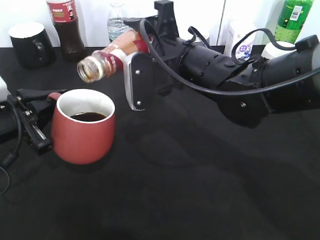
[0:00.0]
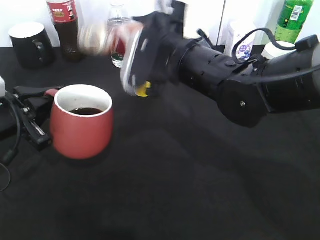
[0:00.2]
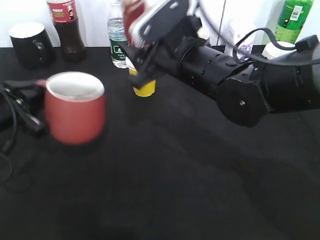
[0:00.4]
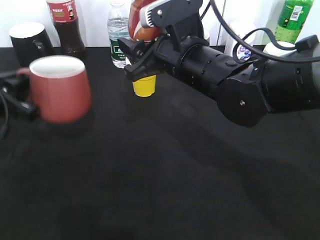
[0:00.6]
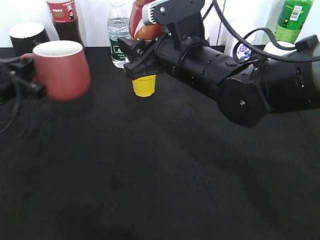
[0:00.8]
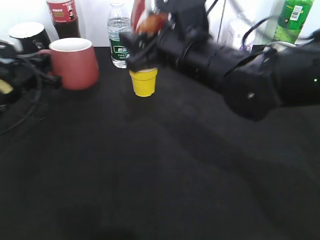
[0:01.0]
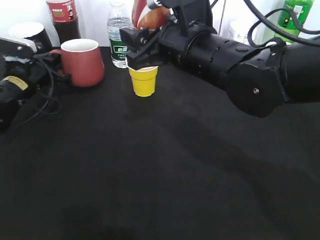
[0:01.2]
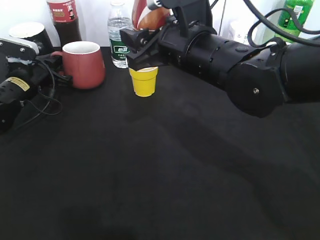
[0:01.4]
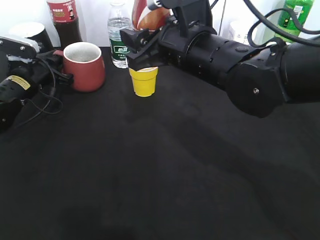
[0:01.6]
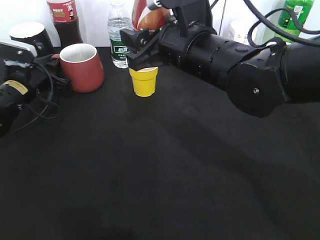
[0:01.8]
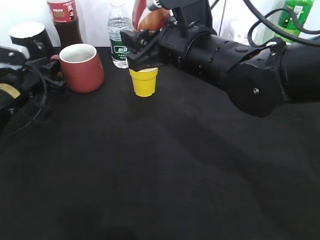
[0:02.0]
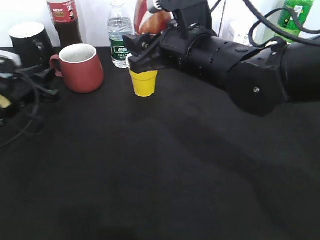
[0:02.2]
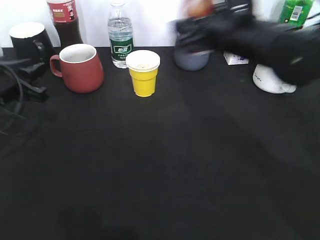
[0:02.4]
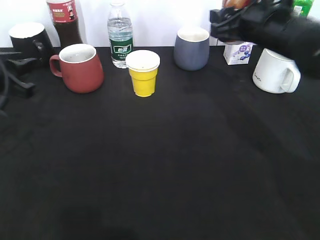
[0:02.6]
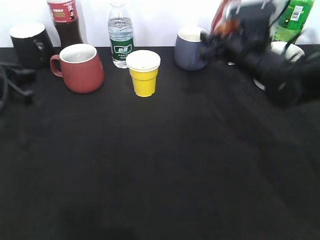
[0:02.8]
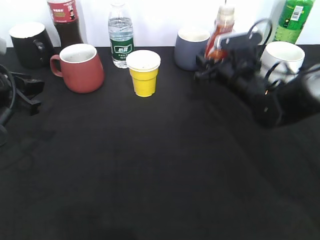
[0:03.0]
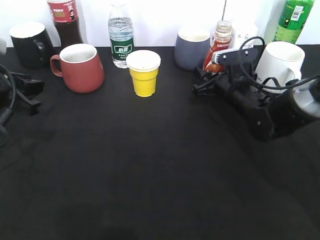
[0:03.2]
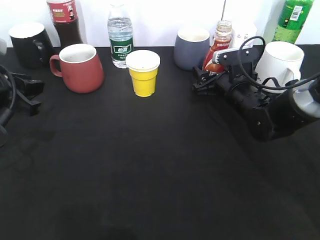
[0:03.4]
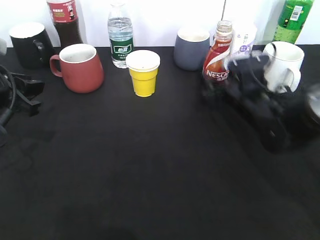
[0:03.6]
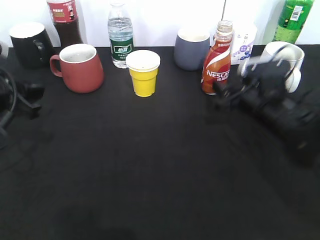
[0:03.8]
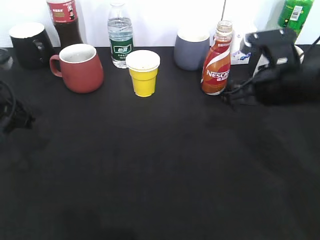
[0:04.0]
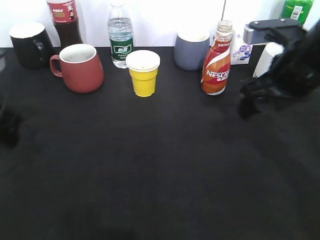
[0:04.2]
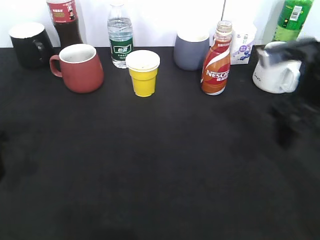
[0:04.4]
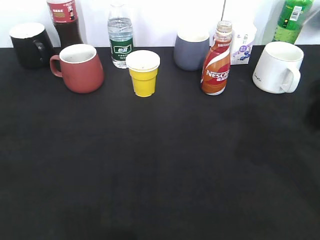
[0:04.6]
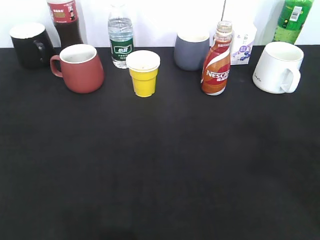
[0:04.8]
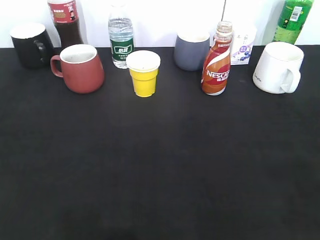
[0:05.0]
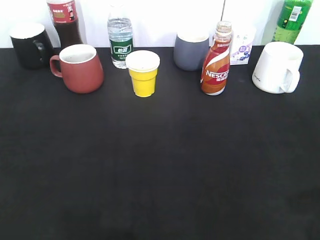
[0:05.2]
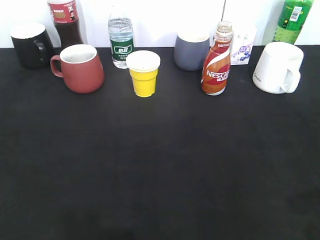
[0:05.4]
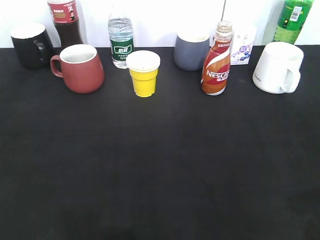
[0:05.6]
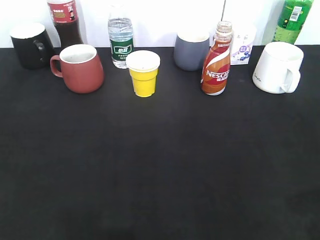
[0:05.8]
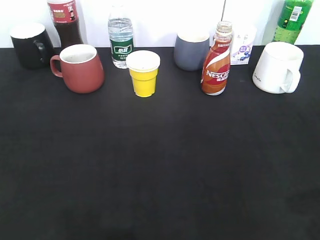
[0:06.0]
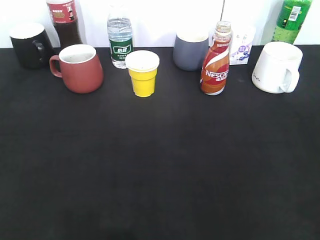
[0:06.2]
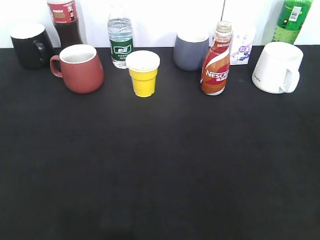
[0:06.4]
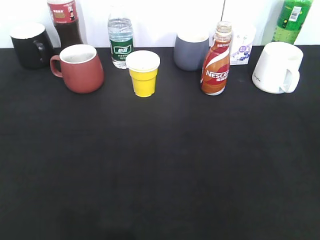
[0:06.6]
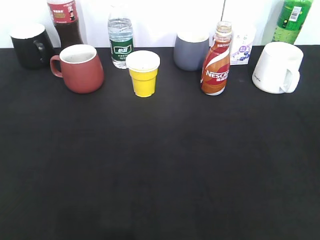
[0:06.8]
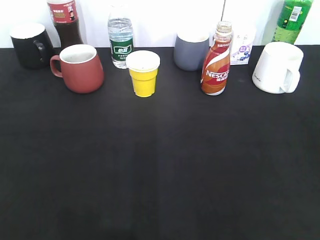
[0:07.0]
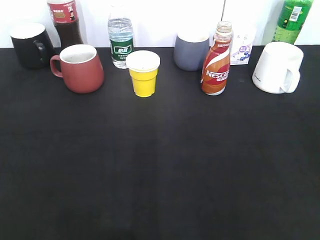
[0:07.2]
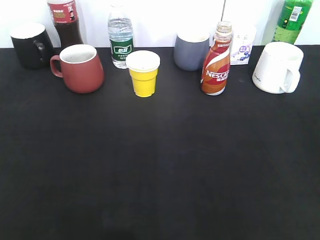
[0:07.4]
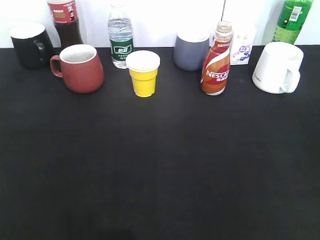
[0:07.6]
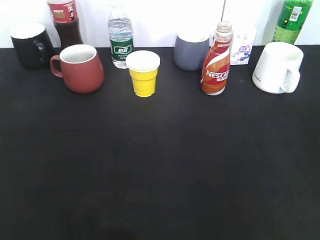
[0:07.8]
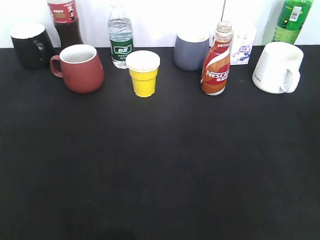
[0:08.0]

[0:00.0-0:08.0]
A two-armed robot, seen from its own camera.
Step, 0:00.4 to 0:02.0: Place the red cup on the table with left gripper.
Step, 0:02.2 to 0:03.2: Place the coffee bottle on the table with right gripper.
0:00.0 to 0:01.6: The left gripper heads forward, covering approximately 15 cm.
0:01.6 to 0:03.2: The left gripper travels backward and upward by roughly 20 cm. Meanwhile the right gripper heads downward, to the right and forward, covering about 20 cm.
0:03.2 to 0:04.8: The left gripper shifts roughly 25 cm backward and upward, and opens its fingers. The right gripper shifts some 35 cm upward and backward, and opens its fingers.
0:04.8 to 0:06.4: The right gripper moves backward, downward and to the right, approximately 15 cm, and closes.
0:06.4 to 0:08.0: The grippers make only small movements.

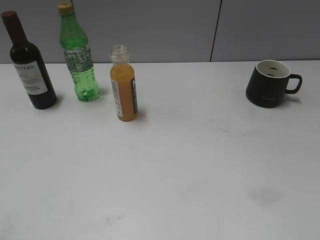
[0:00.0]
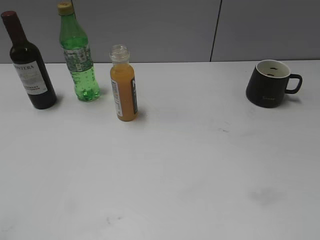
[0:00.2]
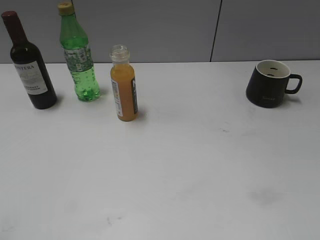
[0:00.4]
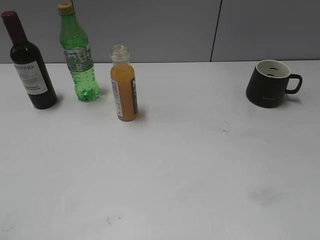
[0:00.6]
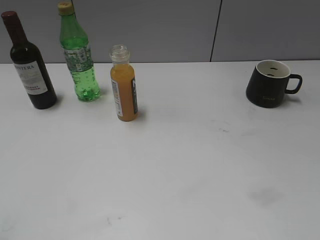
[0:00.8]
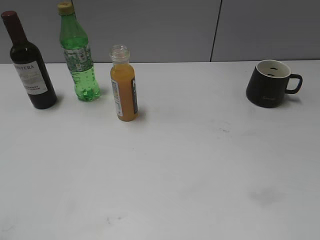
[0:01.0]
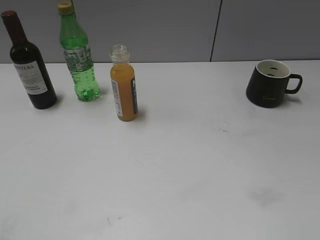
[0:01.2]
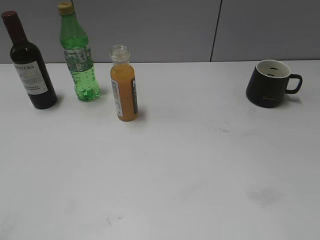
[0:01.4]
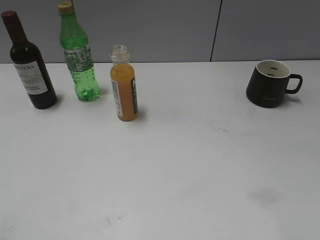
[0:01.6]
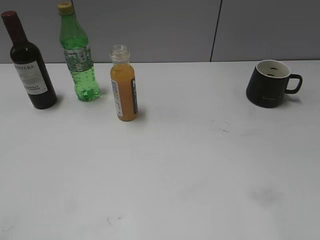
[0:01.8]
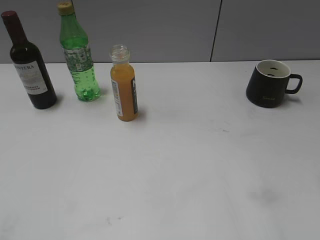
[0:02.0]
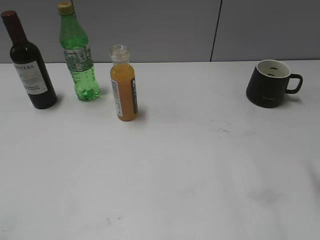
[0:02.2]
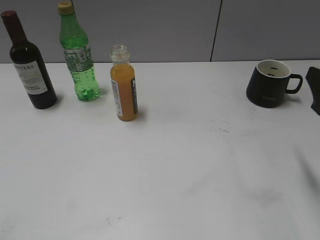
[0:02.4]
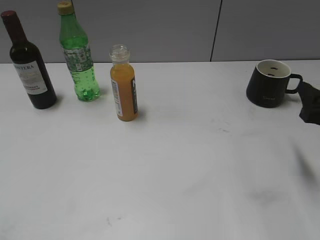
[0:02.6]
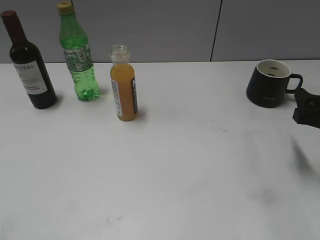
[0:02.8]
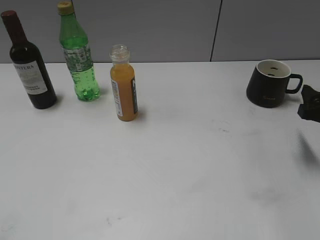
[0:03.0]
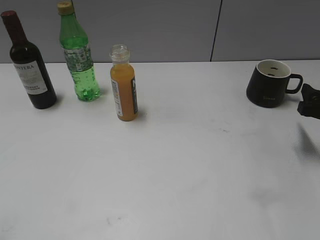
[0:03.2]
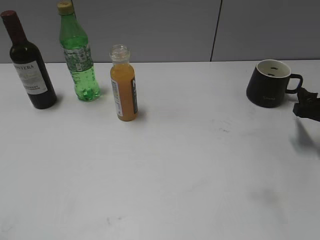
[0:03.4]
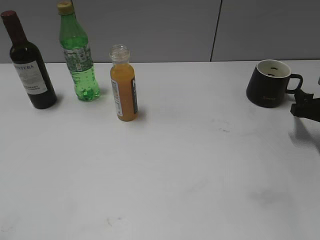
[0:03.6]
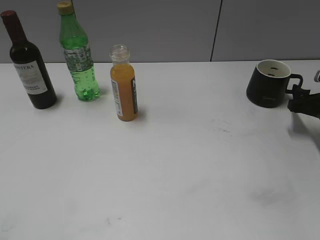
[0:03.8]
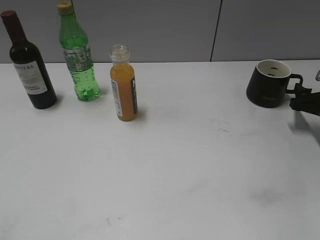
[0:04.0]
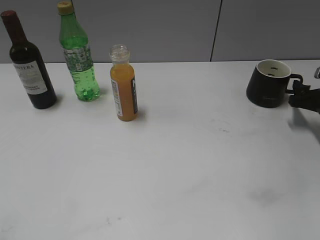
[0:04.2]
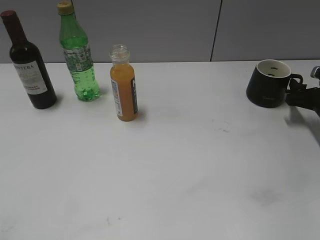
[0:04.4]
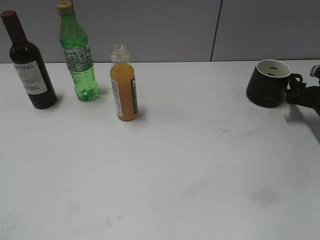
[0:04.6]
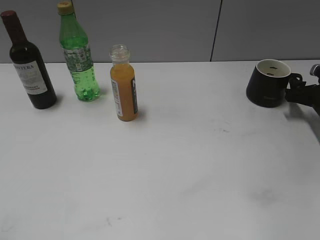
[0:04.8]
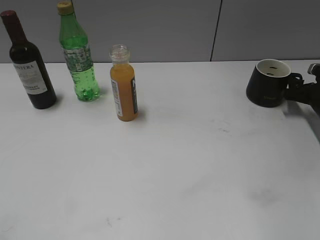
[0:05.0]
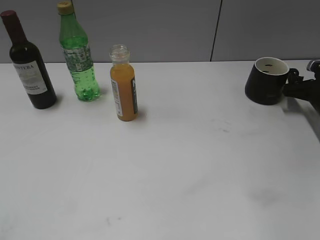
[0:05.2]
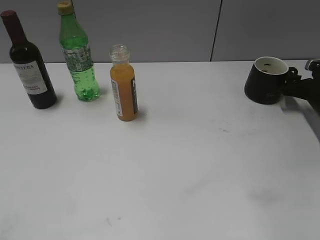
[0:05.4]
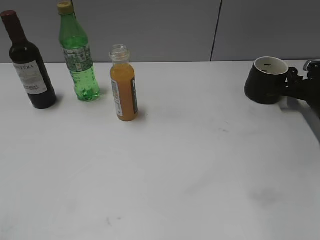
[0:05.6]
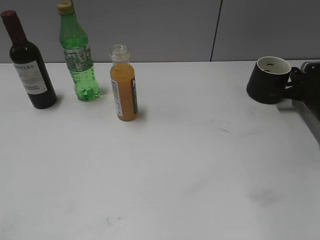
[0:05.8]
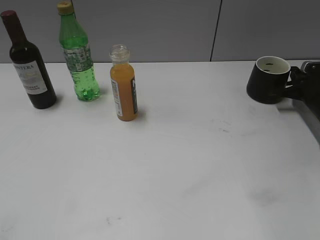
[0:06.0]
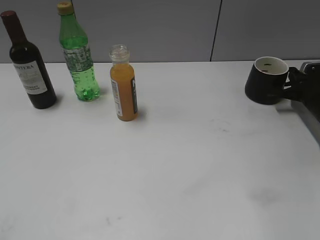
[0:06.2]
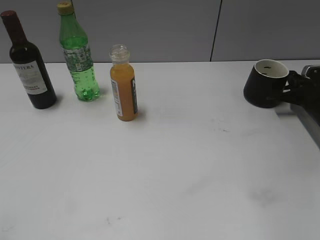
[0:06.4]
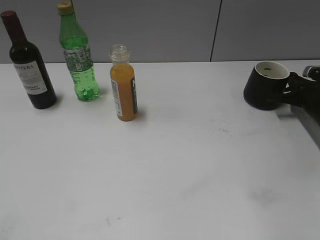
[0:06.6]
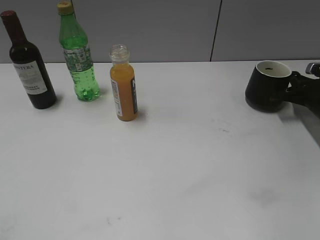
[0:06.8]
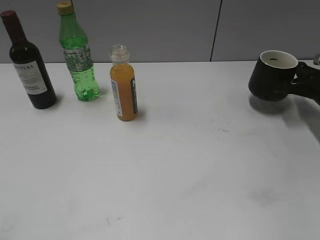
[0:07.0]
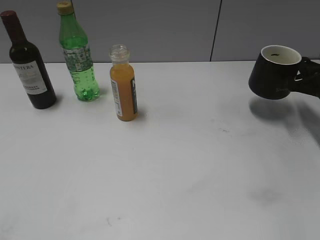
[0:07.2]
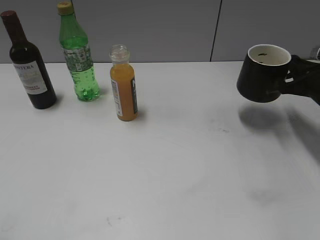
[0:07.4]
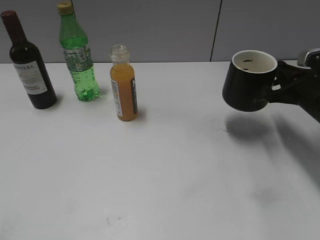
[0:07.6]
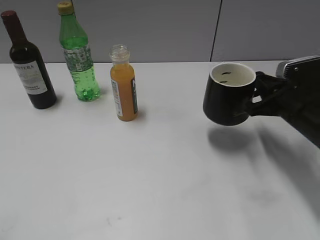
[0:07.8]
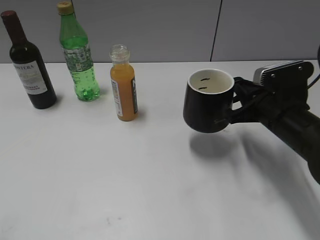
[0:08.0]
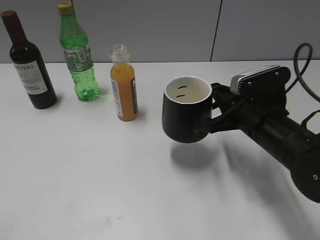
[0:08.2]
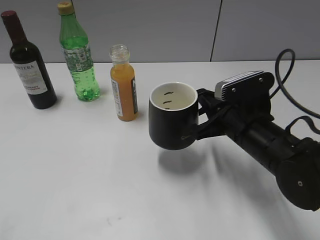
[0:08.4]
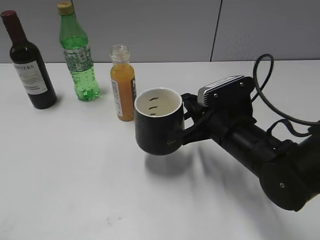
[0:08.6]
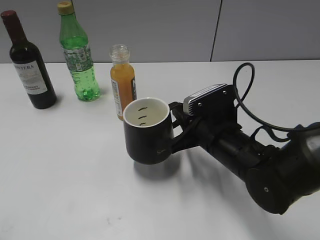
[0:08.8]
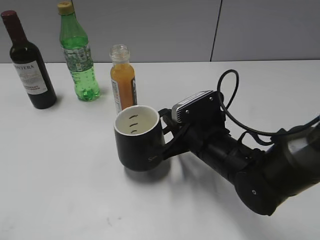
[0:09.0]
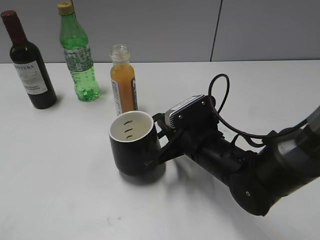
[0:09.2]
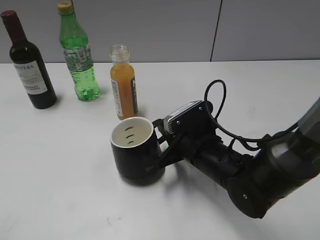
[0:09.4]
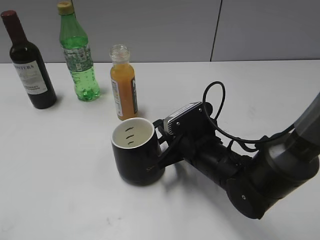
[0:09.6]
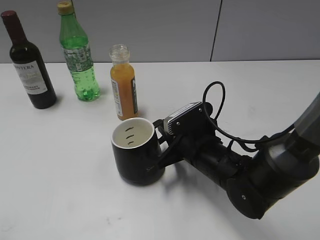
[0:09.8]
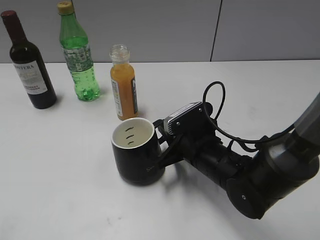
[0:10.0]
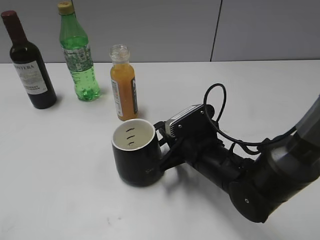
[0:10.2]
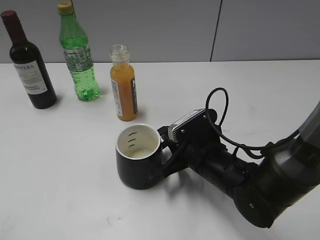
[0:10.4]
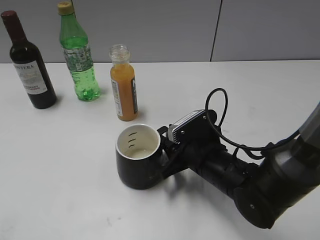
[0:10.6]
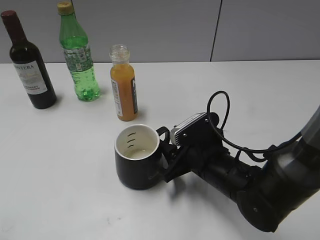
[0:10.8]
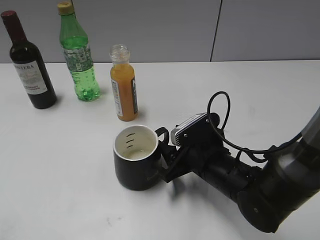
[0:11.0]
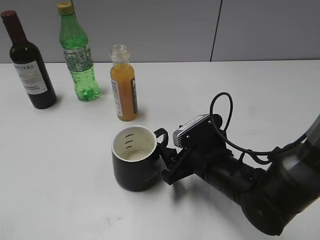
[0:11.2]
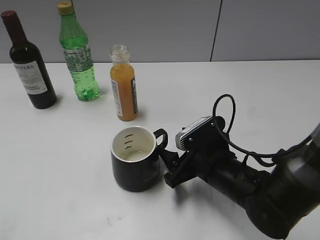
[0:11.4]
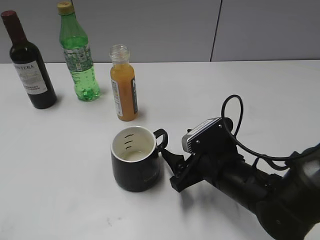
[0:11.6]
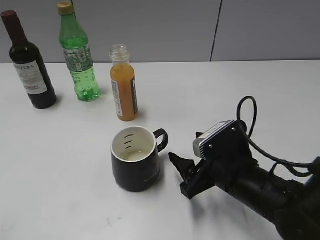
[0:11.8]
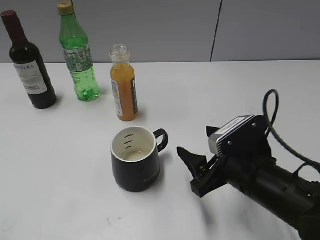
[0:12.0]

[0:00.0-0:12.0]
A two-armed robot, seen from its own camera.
Step, 0:02.4 to 0:06.2: Grasp the black cup with right gripper.
Step, 0:06.6 to 0:10.8: Place the black cup in the center of view with right gripper.
0:01.6 to 0:03.0: The right gripper moves forward and downward, some 25 cm.
0:03.0 to 0:04.4: The right gripper heads forward and downward, covering about 15 cm.
0:04.4 to 0:06.0: The right gripper ends up about 5 cm from where it was, and closes its fingers.
0:06.0 to 0:07.6: The right gripper goes some 15 cm backward, upward and to the left.
0:07.6 to 0:09.0: The right gripper moves to the left, about 20 cm.
0:09.0 to 0:10.4: The grippers make only small movements.
0:10.4 to 0:12.0: The right gripper travels backward by approximately 5 cm, and opens.

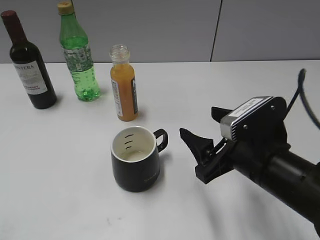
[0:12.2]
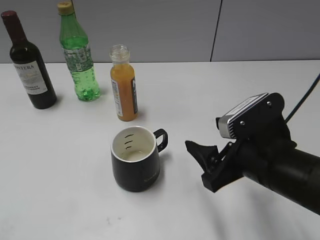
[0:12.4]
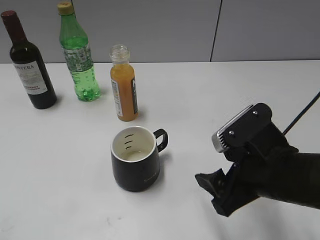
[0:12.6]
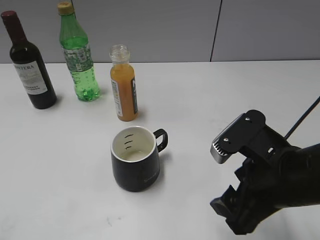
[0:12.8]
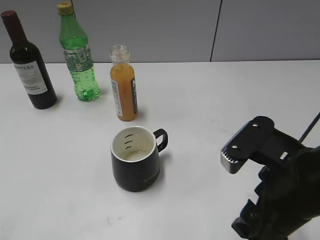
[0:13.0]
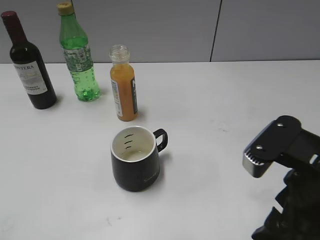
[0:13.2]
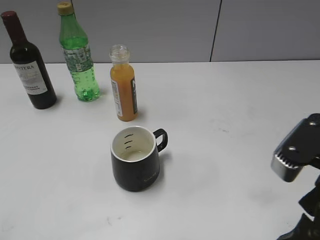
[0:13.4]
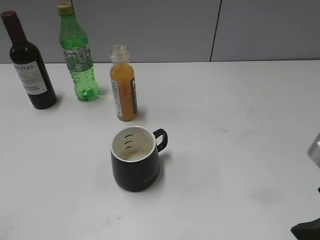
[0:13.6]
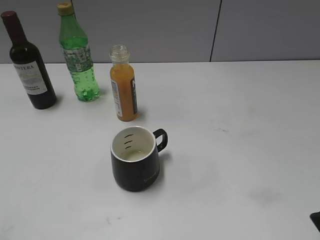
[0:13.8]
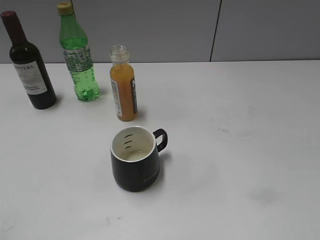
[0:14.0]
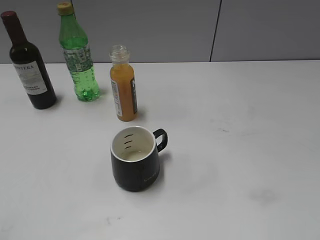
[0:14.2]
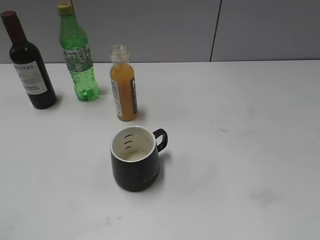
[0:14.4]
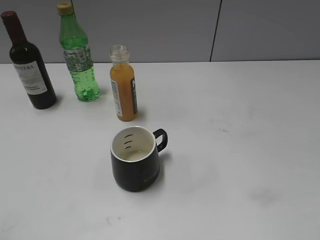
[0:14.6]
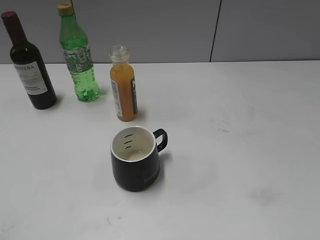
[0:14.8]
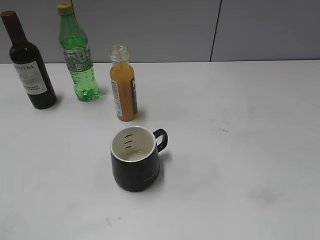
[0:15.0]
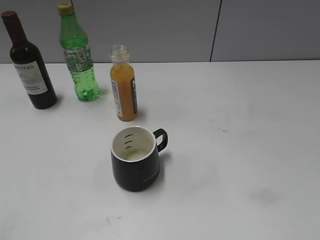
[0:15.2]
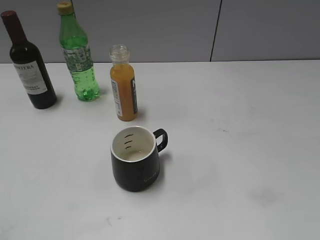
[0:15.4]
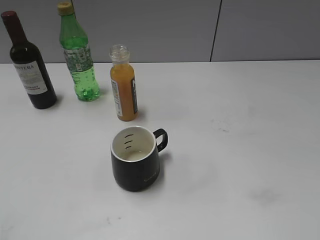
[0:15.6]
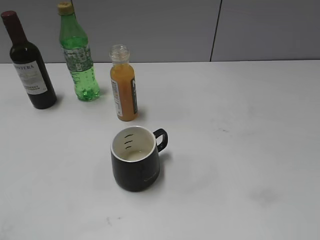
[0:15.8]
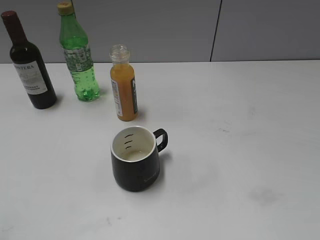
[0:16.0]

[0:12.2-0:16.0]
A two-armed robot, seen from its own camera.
0:12.2 to 0:13.4: The right gripper is displaced upward and backward by some 10 cm.
0:13.4 to 0:14.8: The right gripper shifts roughly 15 cm to the right and backward.
